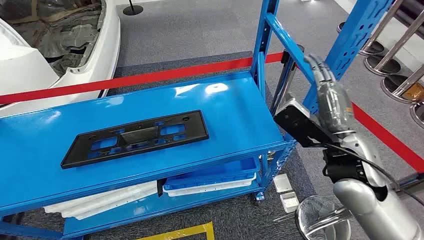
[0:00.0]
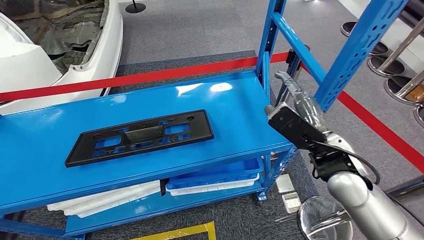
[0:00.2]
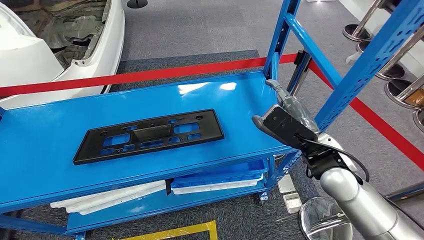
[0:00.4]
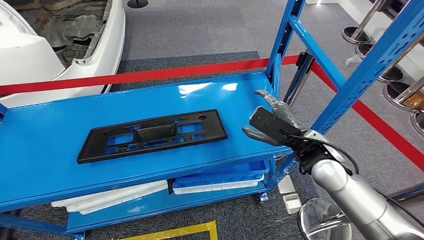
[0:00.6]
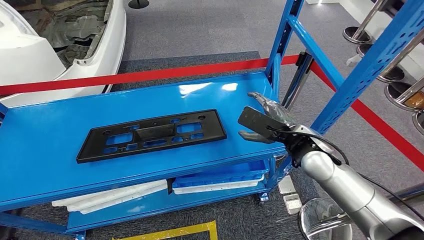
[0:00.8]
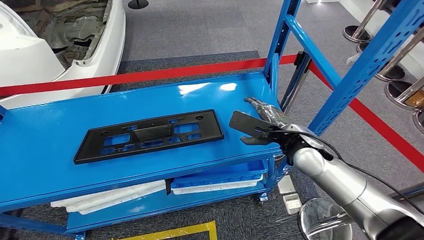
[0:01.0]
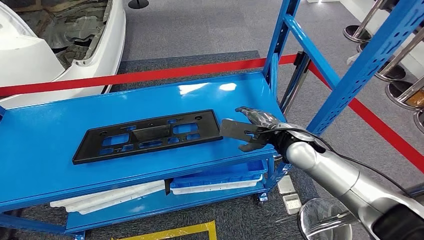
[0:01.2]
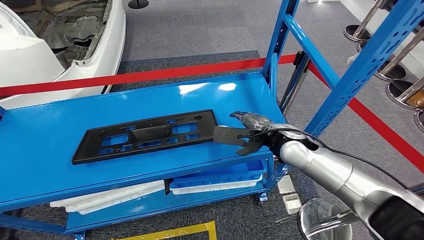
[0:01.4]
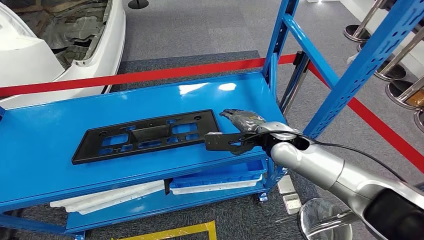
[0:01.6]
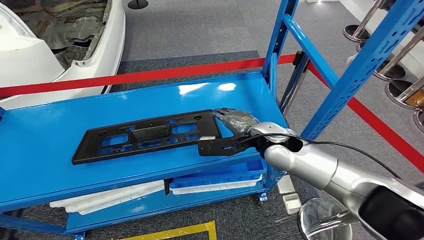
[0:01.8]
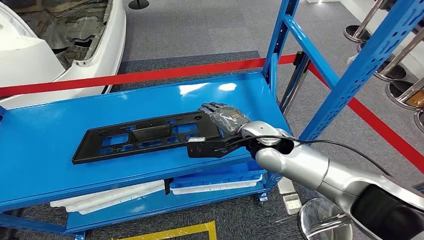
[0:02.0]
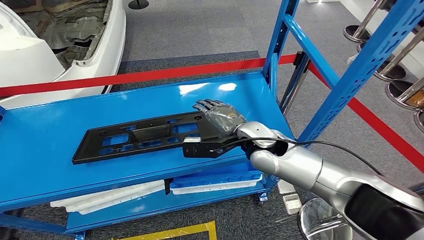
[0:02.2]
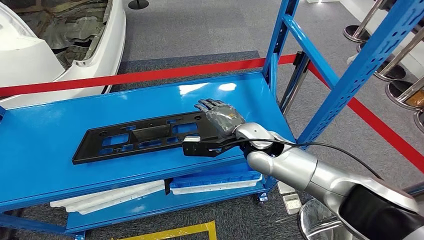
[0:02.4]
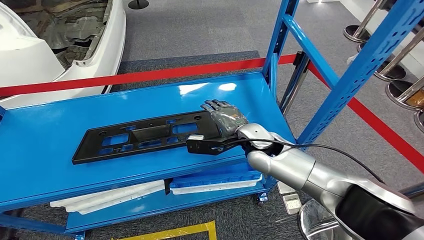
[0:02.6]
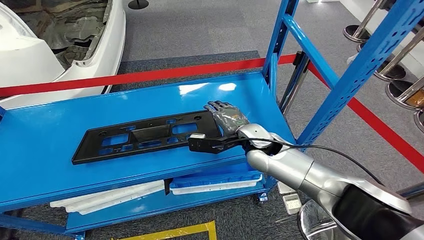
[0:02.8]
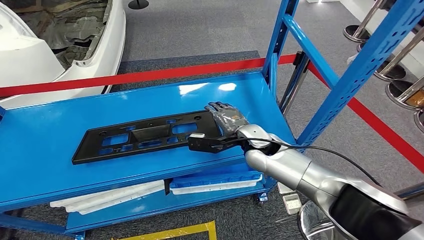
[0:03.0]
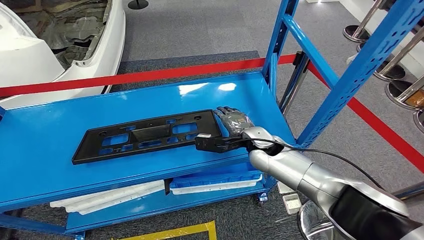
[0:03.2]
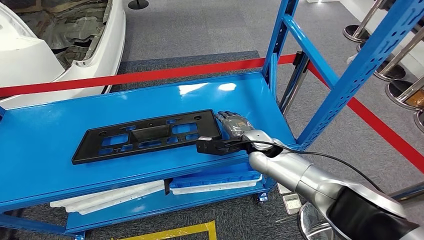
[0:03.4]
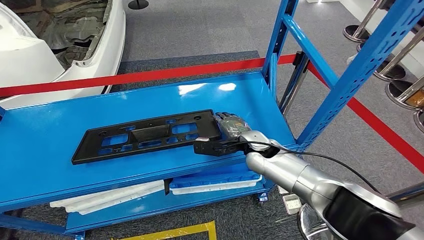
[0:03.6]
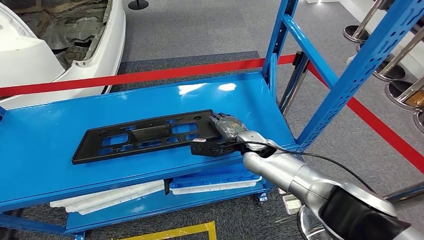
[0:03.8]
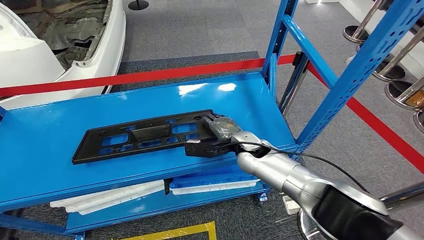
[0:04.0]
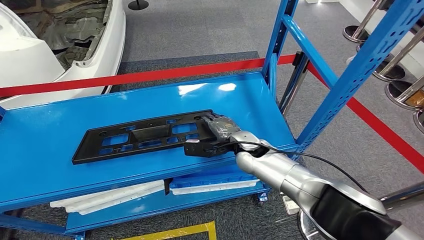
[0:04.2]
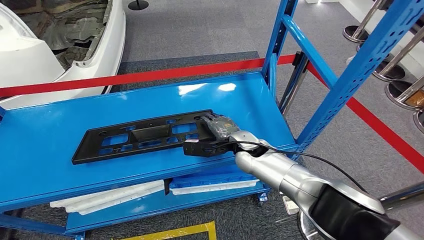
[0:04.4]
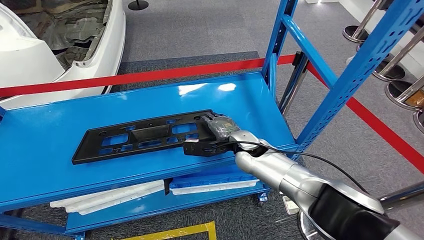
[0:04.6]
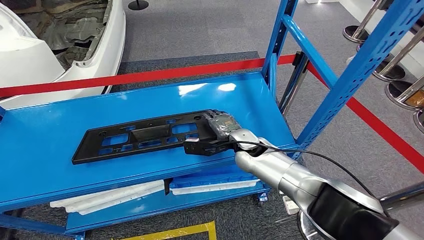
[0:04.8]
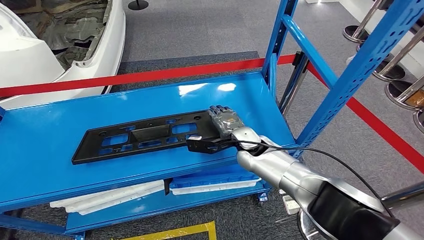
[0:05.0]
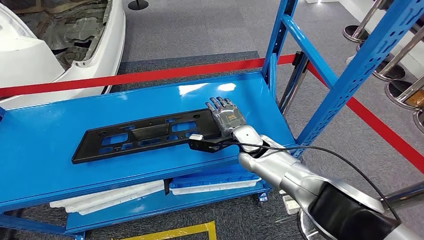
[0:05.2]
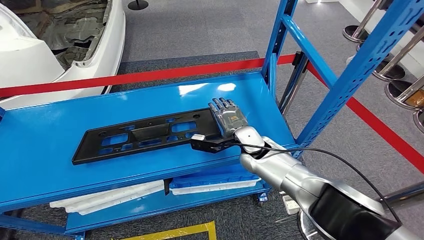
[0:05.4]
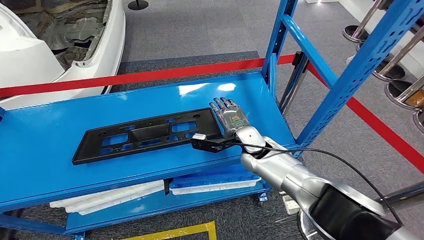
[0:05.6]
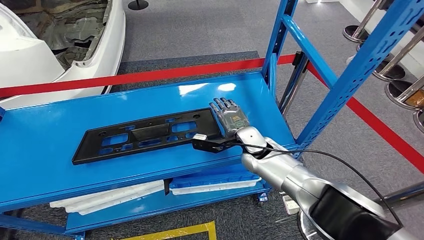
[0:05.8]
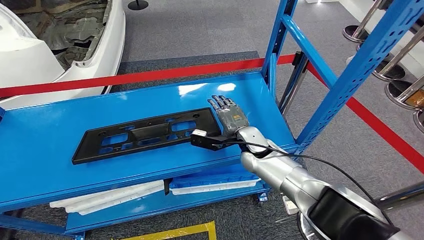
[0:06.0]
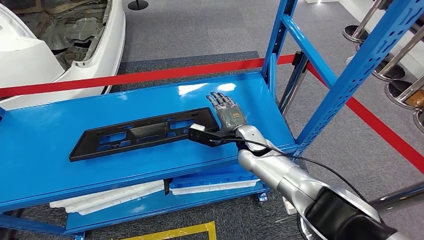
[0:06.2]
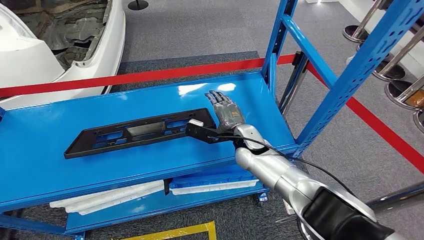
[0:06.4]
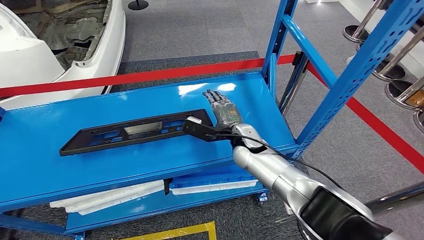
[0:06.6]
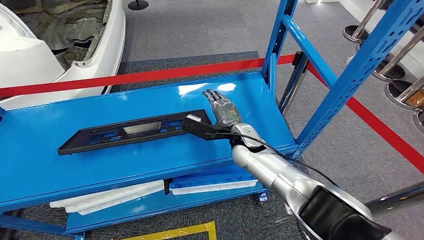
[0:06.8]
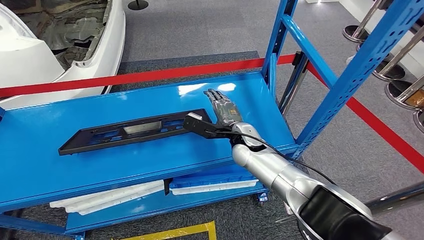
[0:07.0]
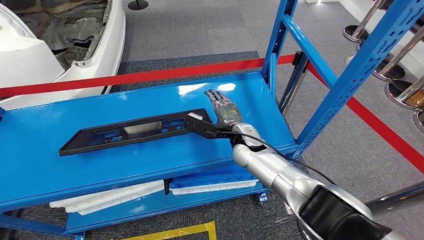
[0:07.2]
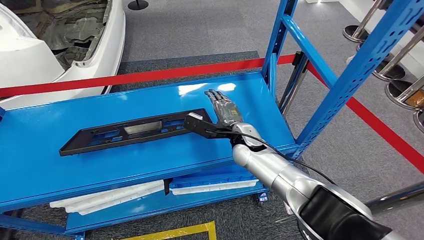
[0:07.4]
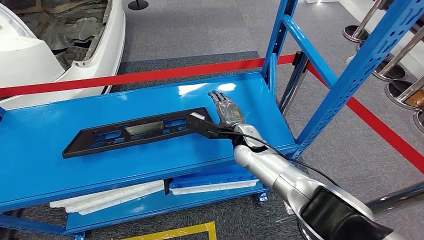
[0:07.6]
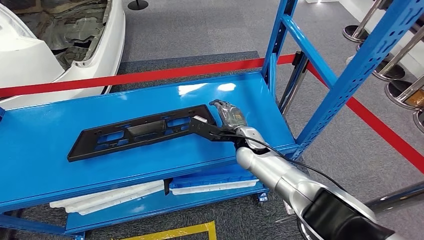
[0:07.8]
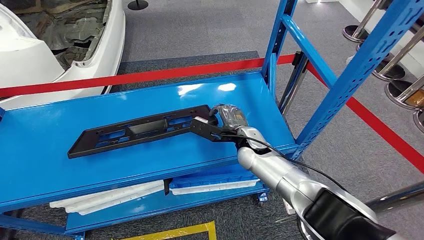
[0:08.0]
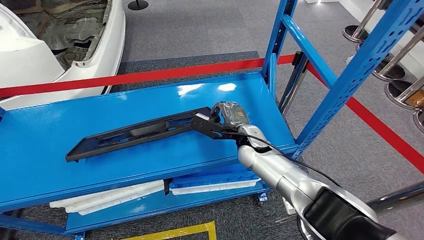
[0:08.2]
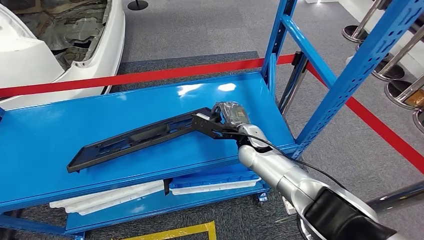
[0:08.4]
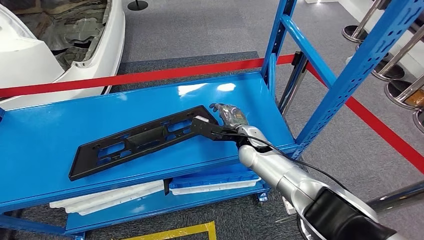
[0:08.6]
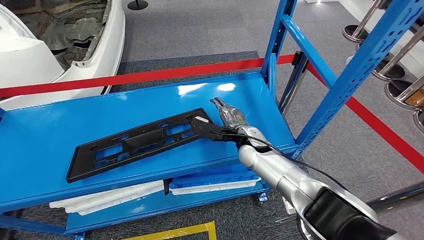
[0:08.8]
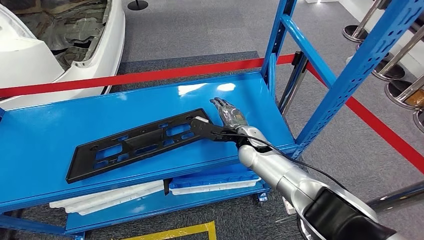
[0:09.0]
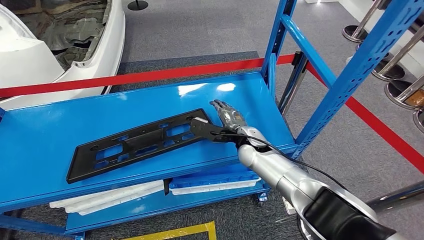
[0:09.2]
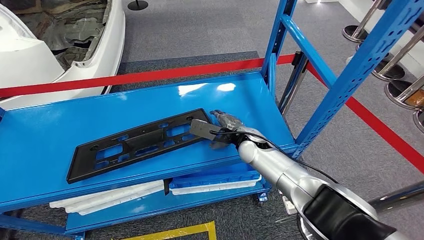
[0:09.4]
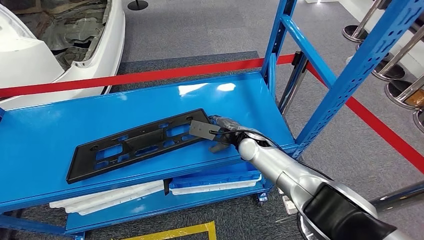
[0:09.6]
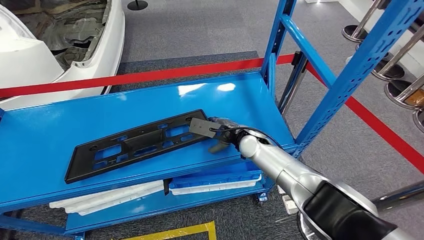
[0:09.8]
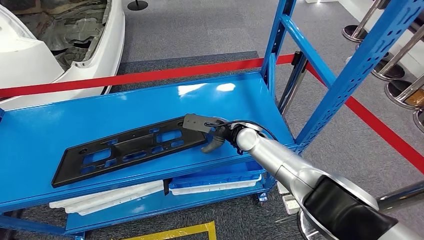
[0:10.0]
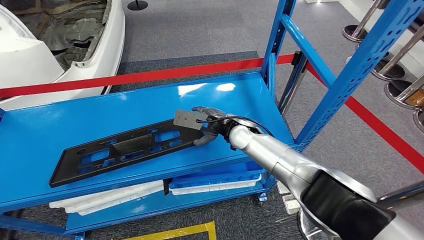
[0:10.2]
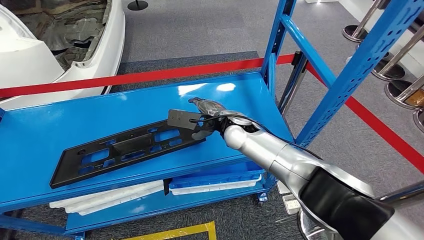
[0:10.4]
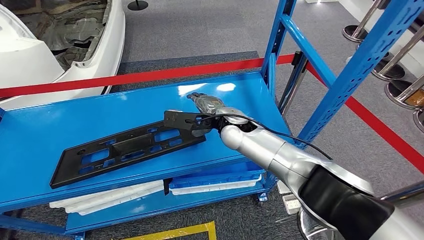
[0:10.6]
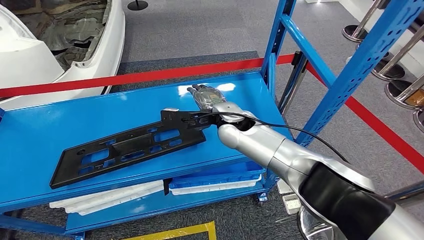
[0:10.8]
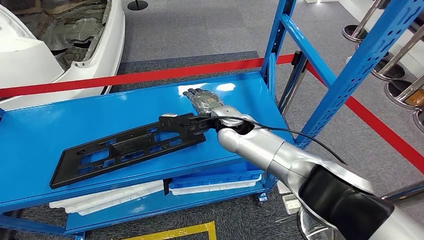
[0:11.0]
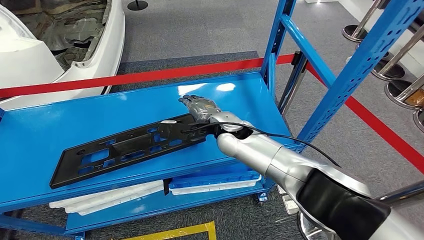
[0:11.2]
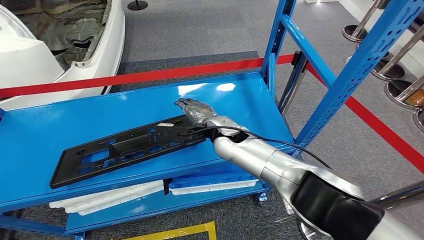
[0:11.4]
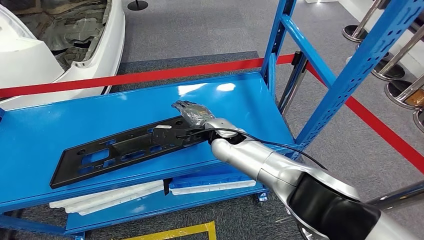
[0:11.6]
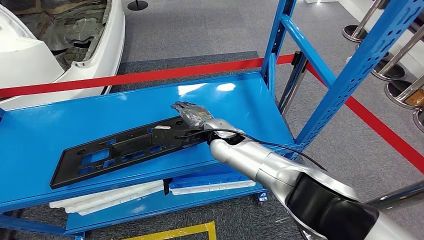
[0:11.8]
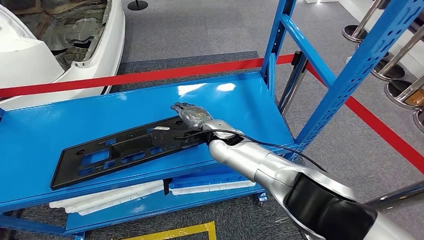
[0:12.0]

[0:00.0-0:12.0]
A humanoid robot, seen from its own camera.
0:01.6 to 0:03.0: The right hand moves roughly 5 cm.
0:03.0 to 0:04.4: The hands stay close to where they were, moving slightly.
0:06.0 to 0:07.6: The hands stay close to where they were, moving slightly.
0:07.6 to 0:09.0: The hands move only a little.
0:09.0 to 0:10.4: The right hand goes about 5 cm upward.
0:10.4 to 0:12.0: The hands move only a little.

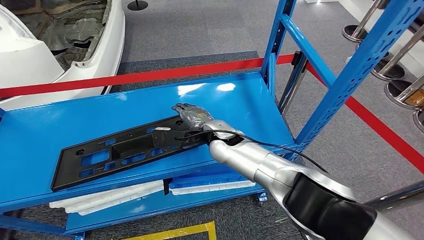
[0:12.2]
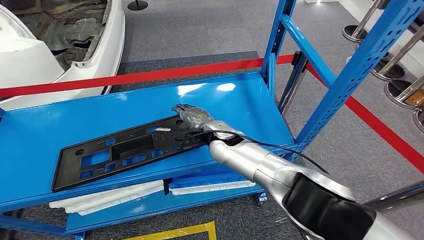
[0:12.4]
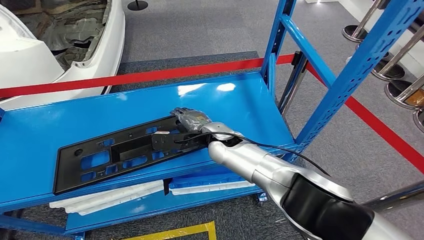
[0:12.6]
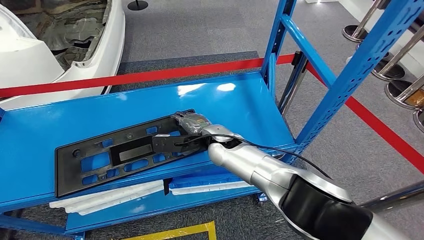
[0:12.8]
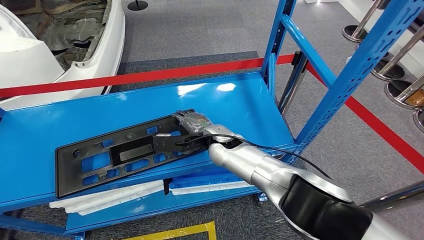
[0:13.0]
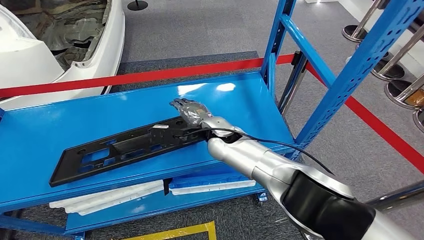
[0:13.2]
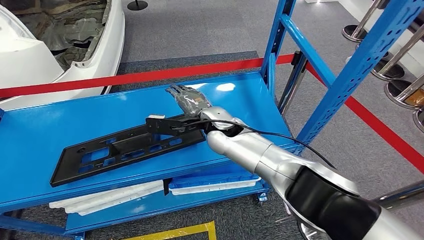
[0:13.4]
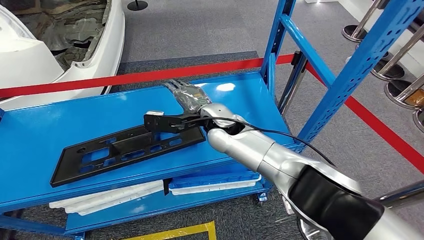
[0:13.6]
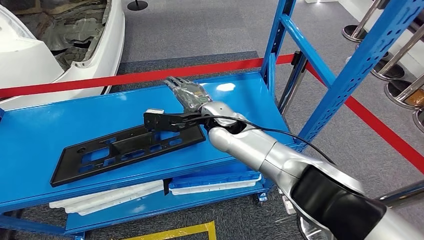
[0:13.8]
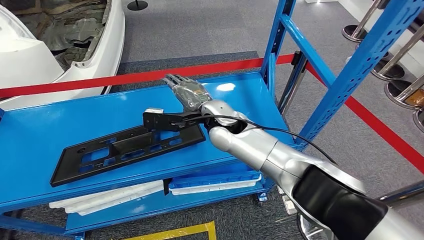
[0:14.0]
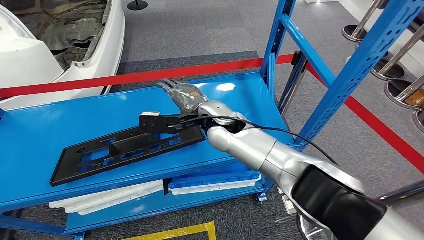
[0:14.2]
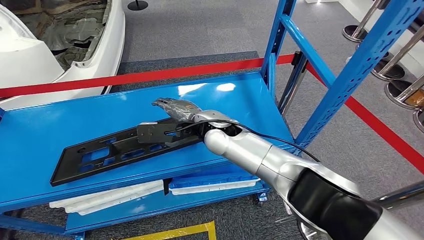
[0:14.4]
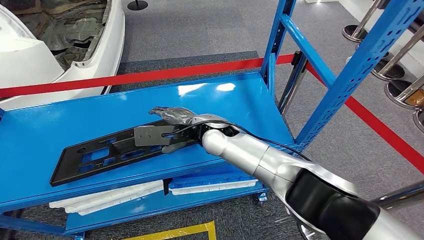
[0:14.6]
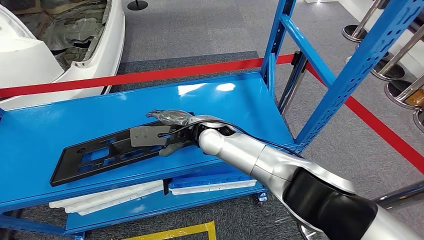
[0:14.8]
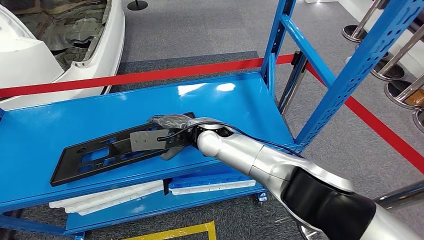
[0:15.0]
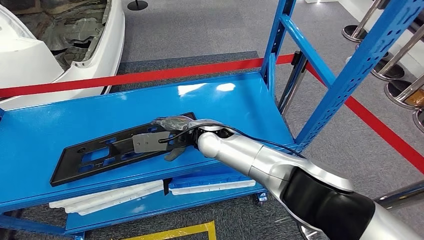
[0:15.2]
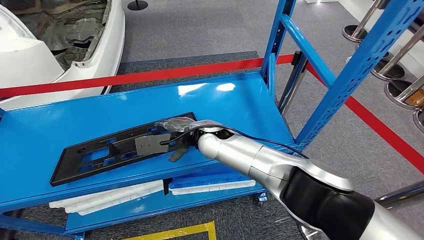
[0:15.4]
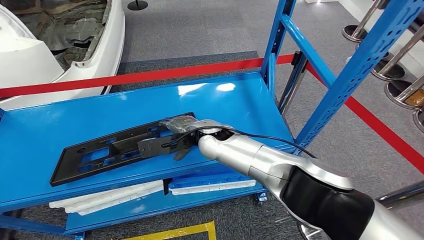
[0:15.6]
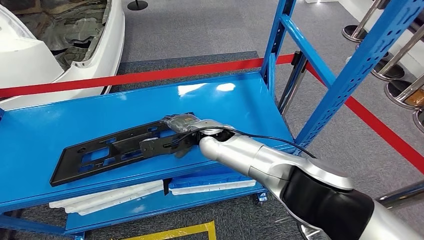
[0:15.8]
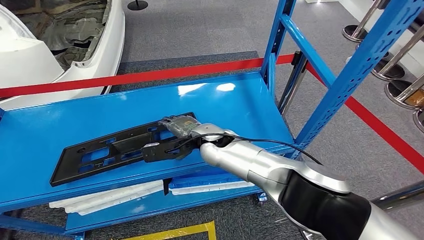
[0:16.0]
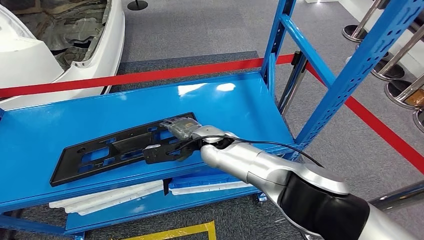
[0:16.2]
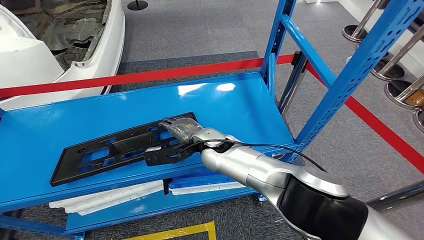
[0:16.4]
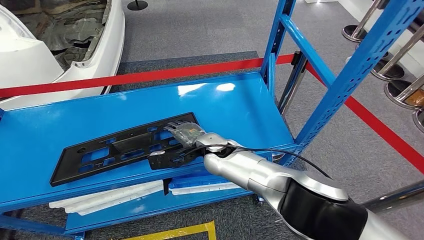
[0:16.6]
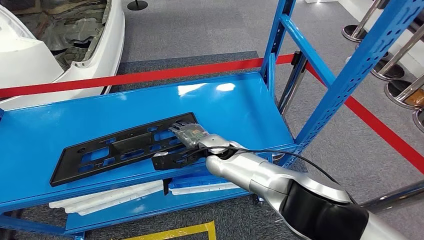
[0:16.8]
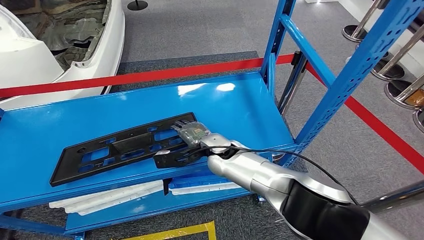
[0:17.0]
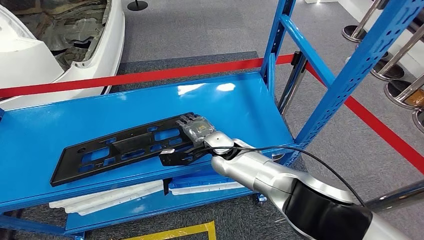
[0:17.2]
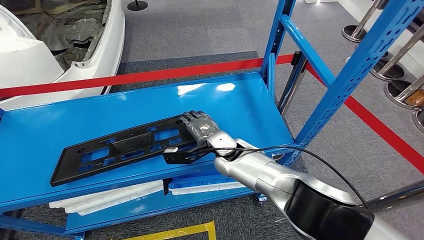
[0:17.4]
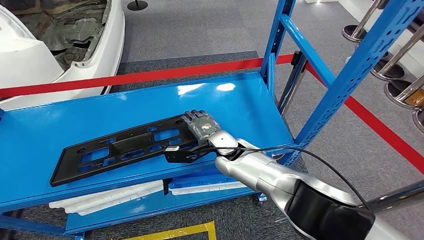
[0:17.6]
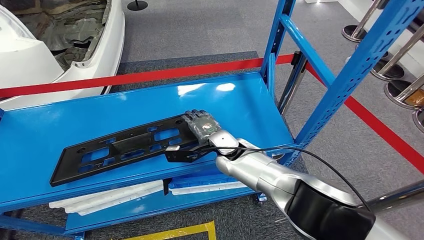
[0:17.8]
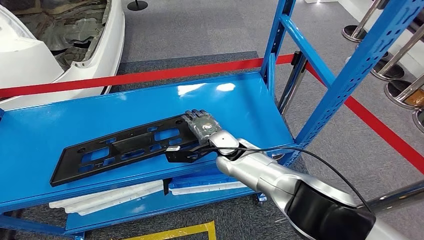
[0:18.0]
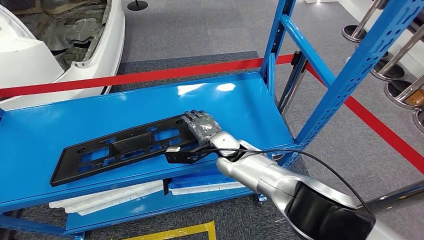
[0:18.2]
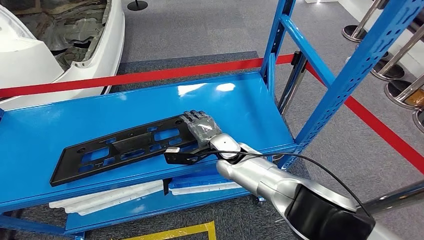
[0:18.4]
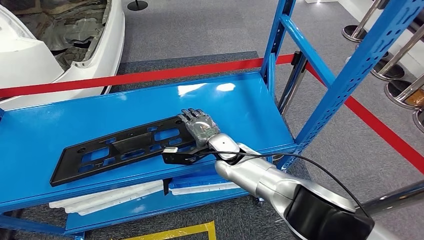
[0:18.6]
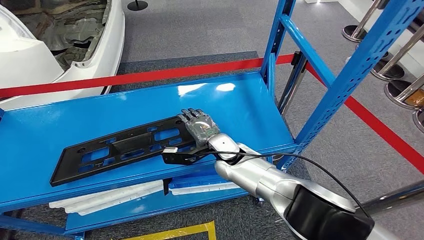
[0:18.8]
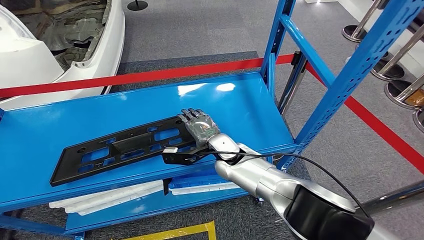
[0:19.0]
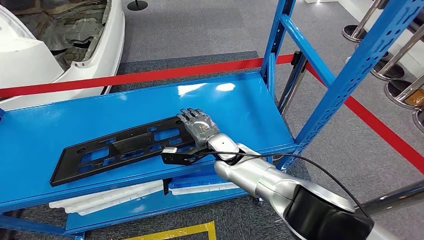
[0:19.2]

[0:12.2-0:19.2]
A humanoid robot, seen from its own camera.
0:12.2 to 0:13.6: The right hand moves upward, about 5 cm.
0:15.0 to 0:16.4: The right hand moves downward, approximately 5 cm.
0:16.4 to 0:19.2: There are only small adjustments of the hands.